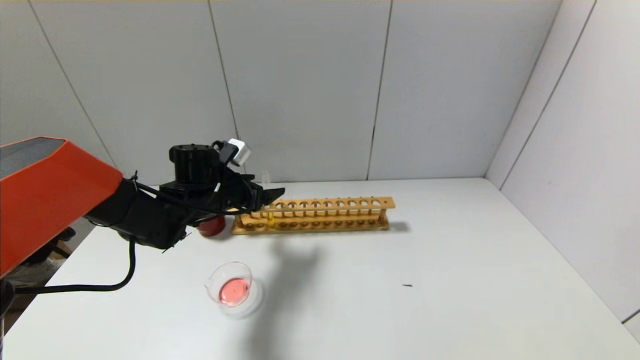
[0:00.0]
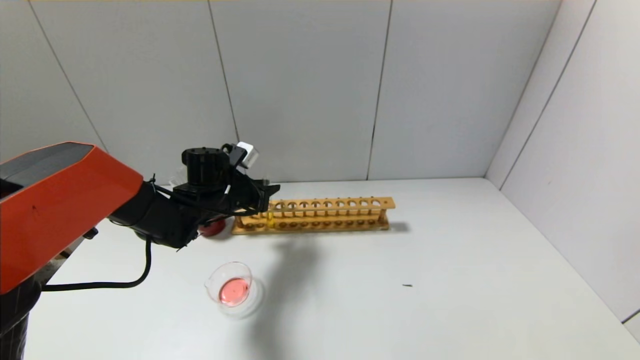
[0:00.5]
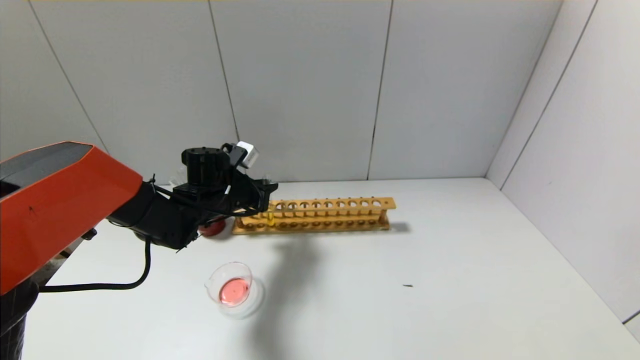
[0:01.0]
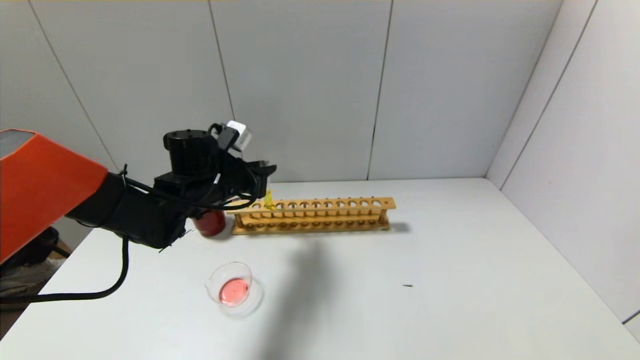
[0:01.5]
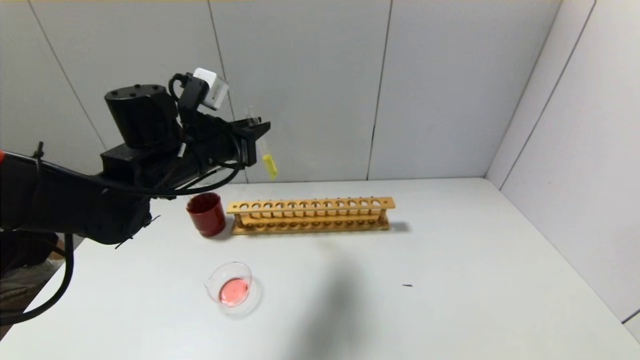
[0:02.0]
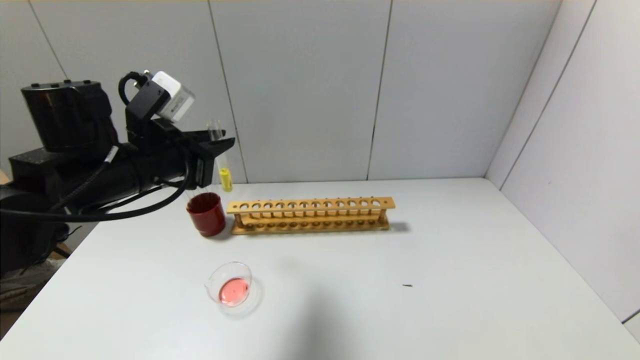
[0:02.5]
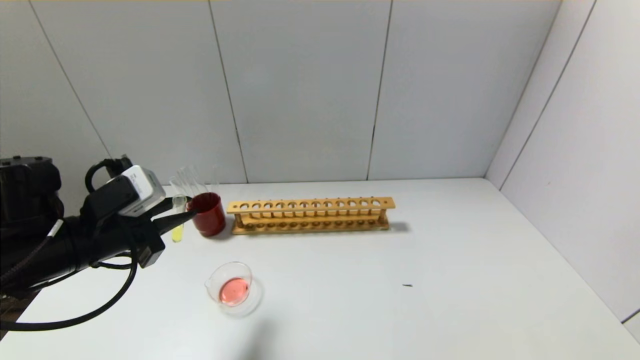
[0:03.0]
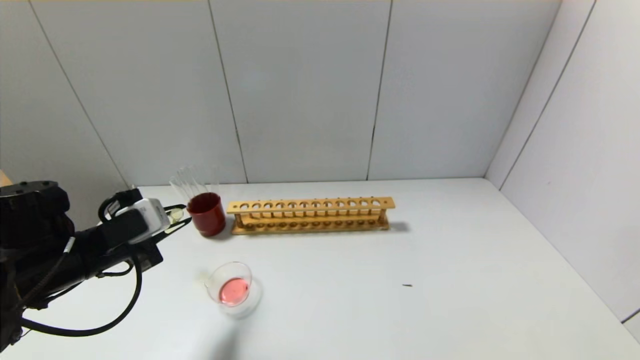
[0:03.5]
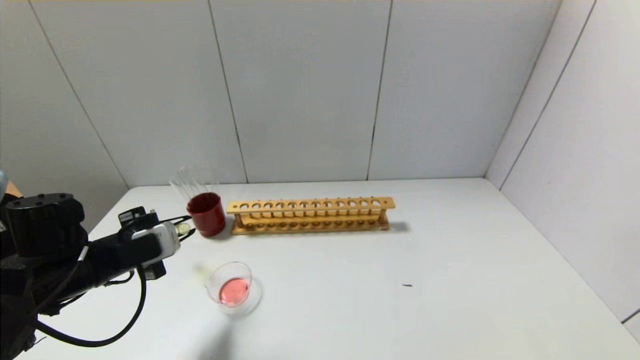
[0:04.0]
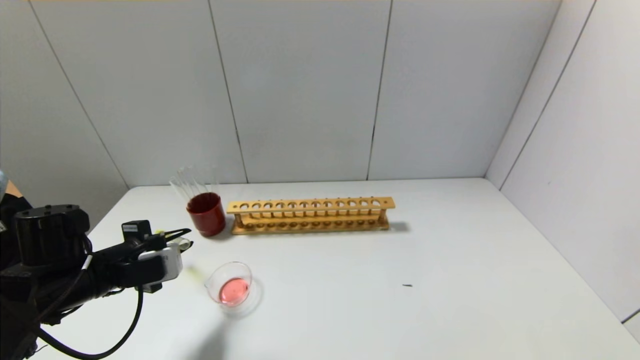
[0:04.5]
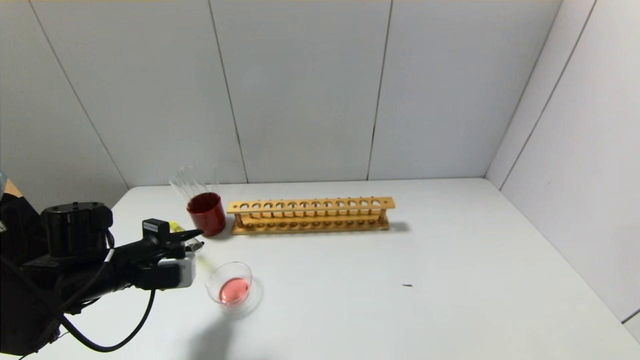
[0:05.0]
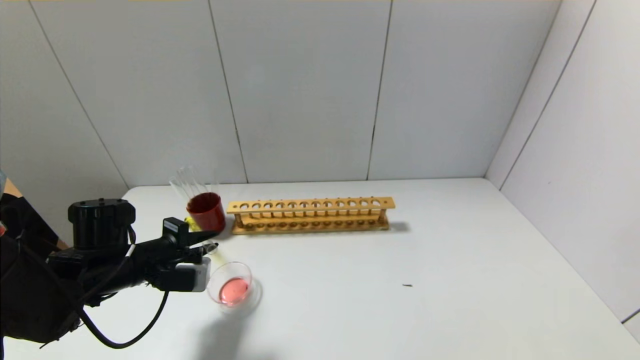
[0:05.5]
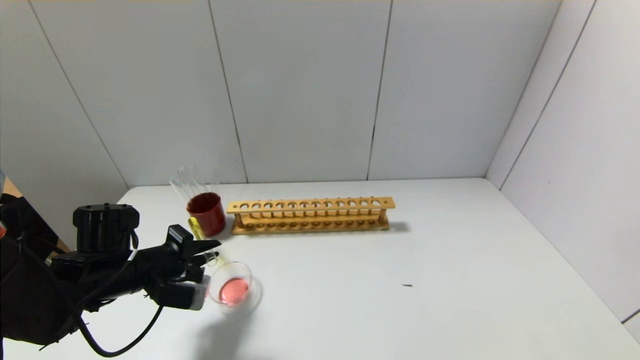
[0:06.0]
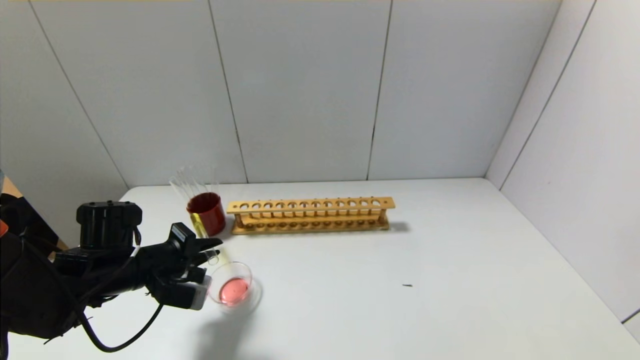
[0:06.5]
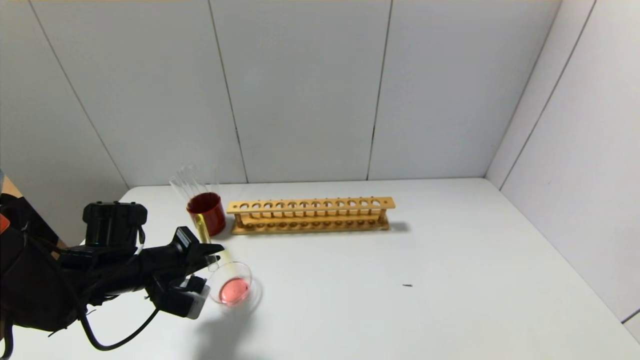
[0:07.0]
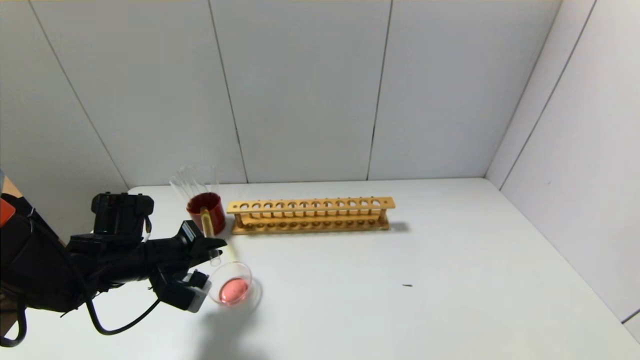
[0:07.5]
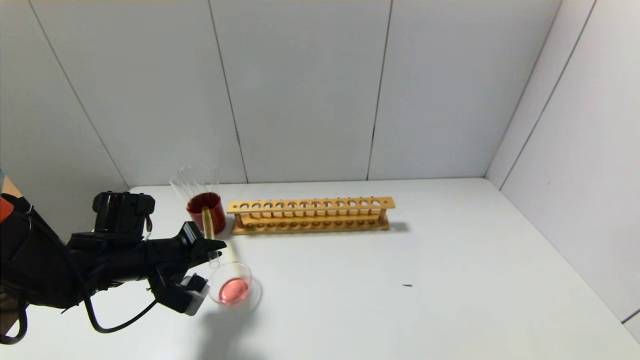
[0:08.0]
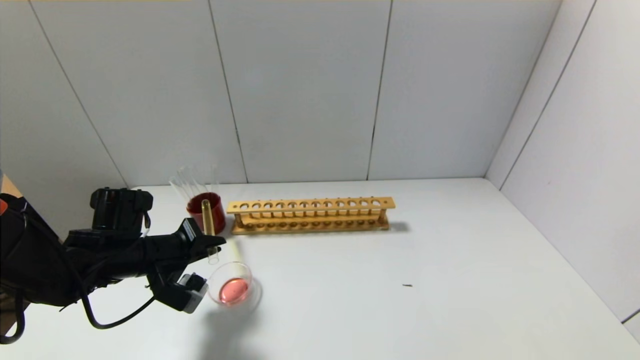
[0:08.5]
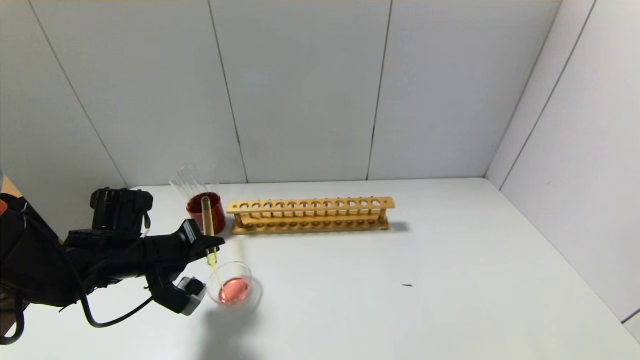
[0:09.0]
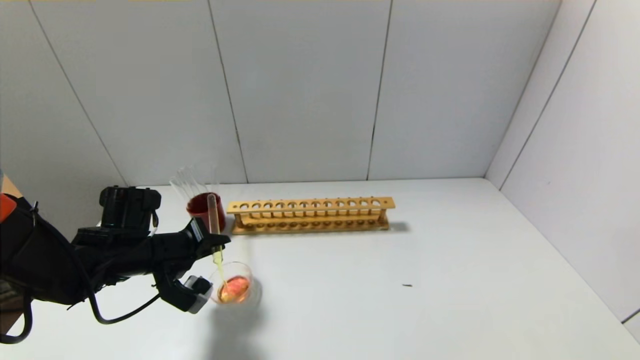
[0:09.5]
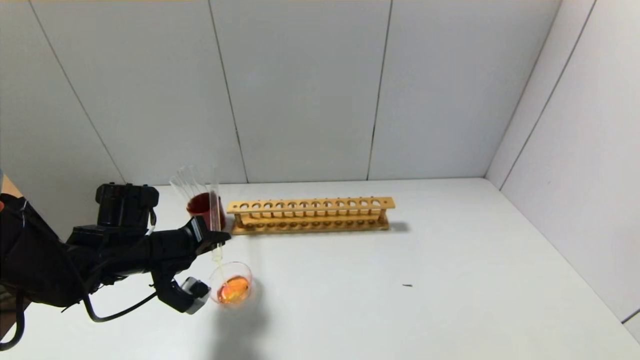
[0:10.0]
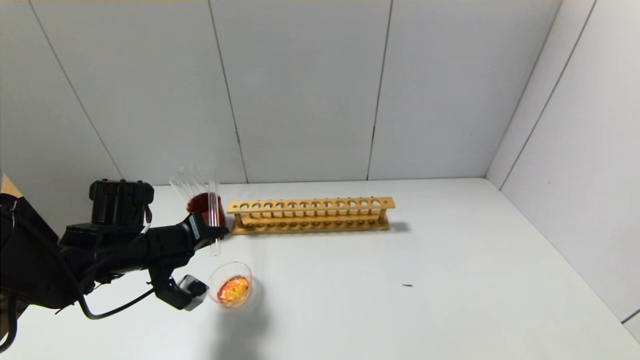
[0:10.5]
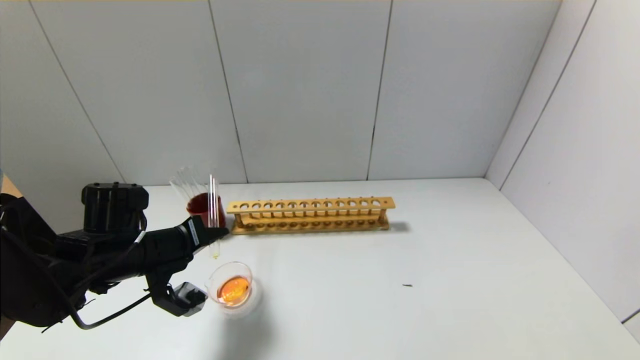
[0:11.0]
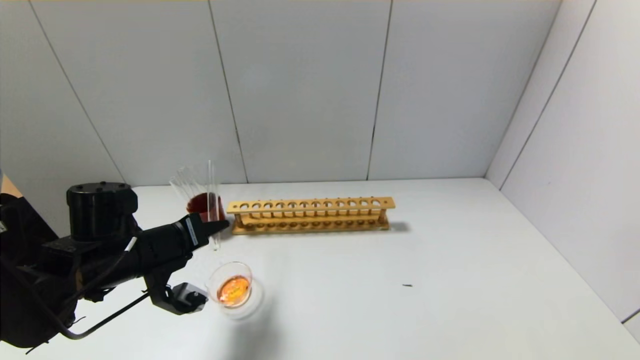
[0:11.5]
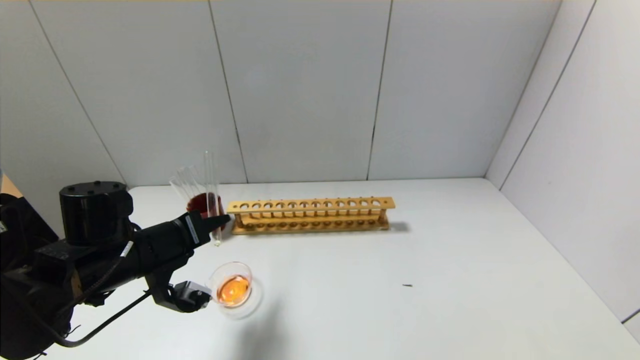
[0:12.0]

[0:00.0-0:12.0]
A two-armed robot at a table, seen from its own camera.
0.0 to 2.0 s: The left gripper heads upward and backward, covering about 15 cm, and closes its fingers.
2.0 to 4.0 s: The left gripper shifts about 20 cm downward, to the left and backward.
4.0 to 6.0 s: The left gripper moves about 5 cm.
6.0 to 8.0 s: The grippers make only small movements.
8.0 to 10.0 s: The grippers stay close to where they were, moving slightly.
10.0 to 12.0 s: The left gripper changes place by roughly 5 cm.

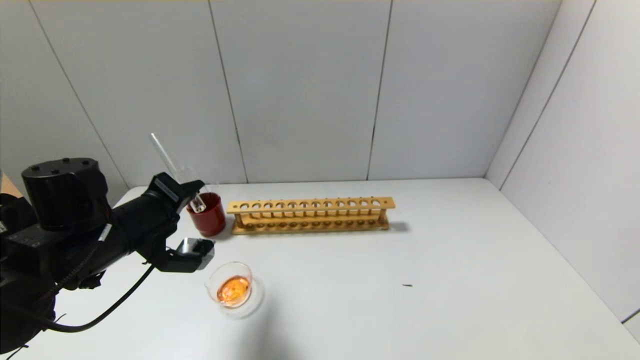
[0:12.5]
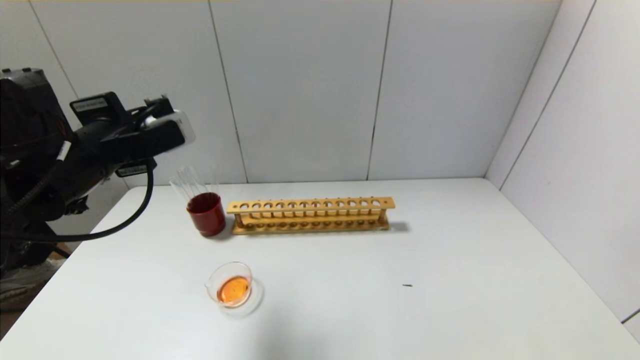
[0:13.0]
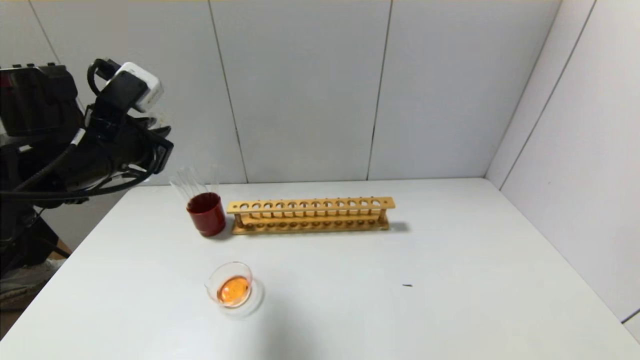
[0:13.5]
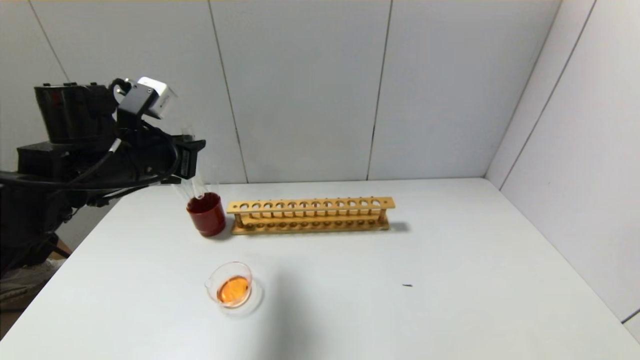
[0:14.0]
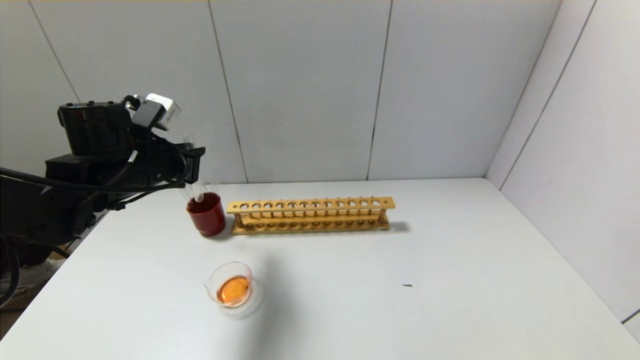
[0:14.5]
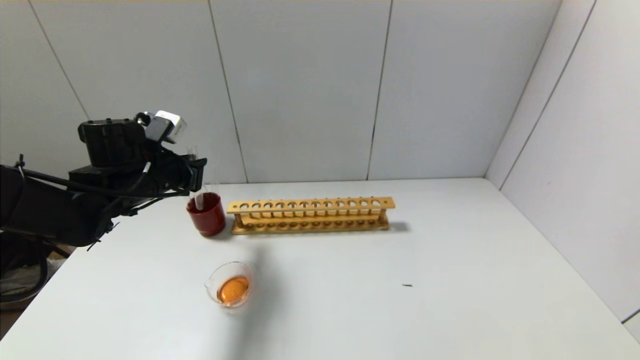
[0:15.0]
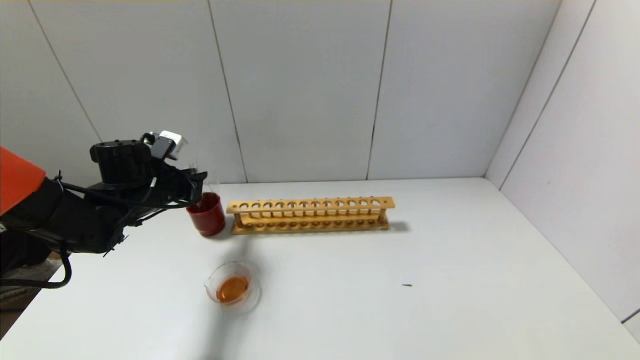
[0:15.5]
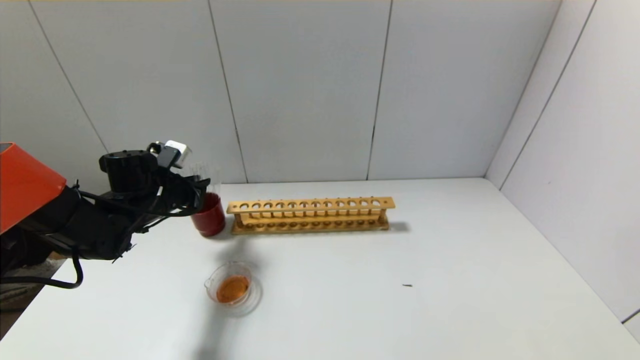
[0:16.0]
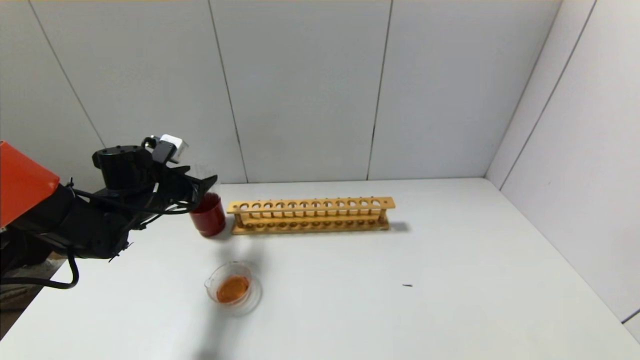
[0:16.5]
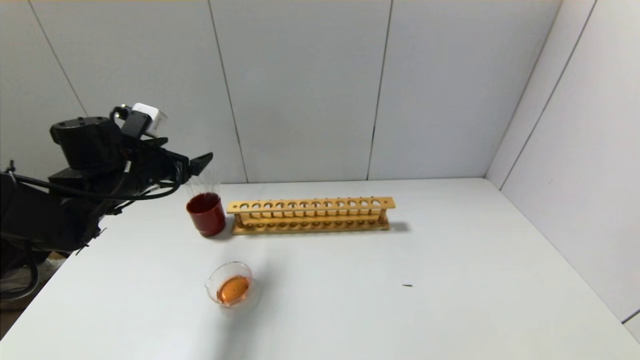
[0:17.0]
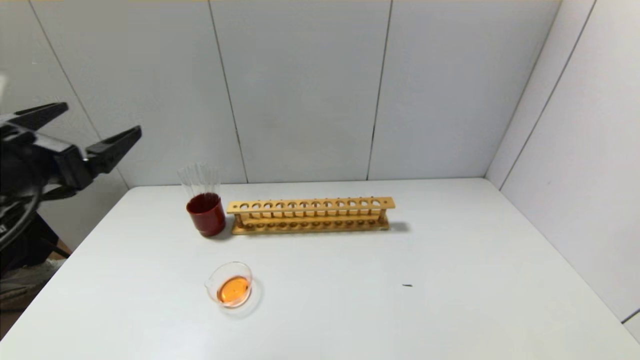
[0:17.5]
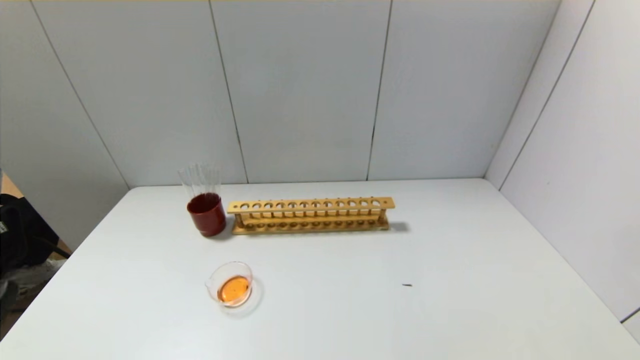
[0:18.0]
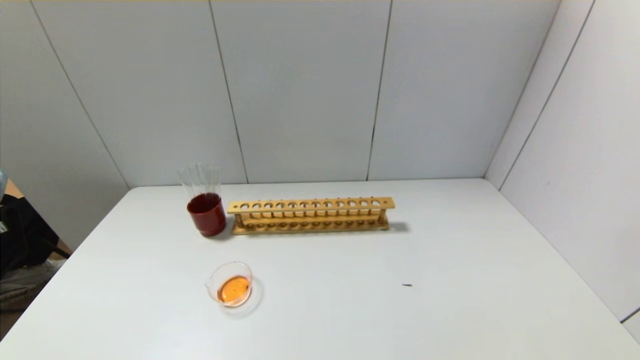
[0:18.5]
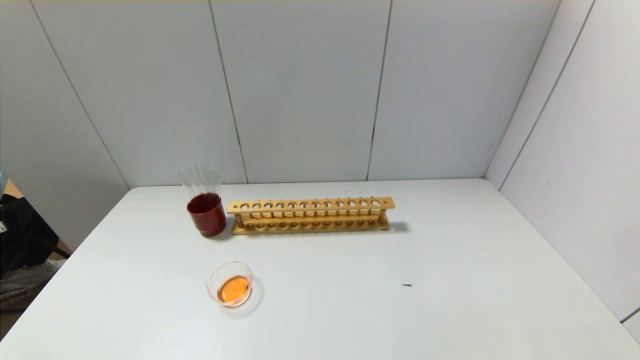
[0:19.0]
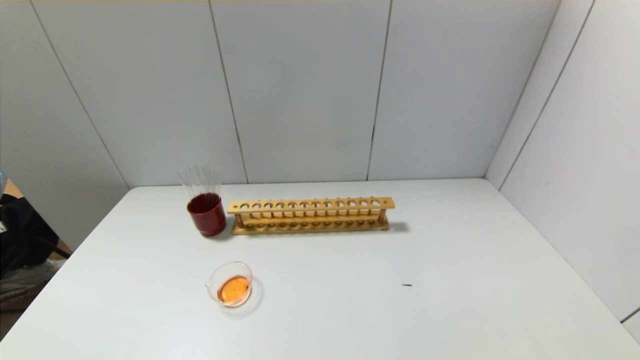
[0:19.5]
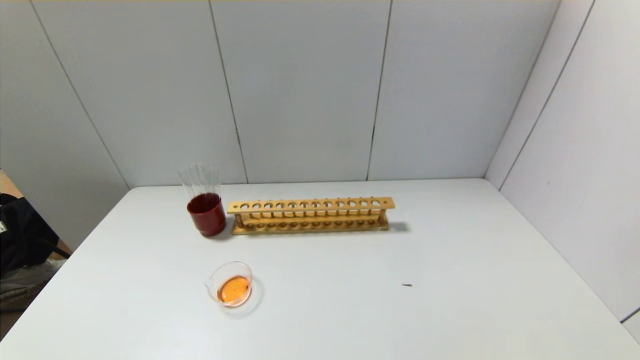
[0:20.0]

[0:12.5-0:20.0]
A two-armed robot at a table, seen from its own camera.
Step, 13.0 to 16.0 s: Place the test tube into the brown cup with the left gripper.
12.5 to 14.5 s: The left gripper travels forward by about 10 cm.
14.5 to 16.5 s: The left gripper shifts approximately 10 cm downward and forward, and opens.
16.5 to 18.0 s: The left gripper goes about 35 cm backward.

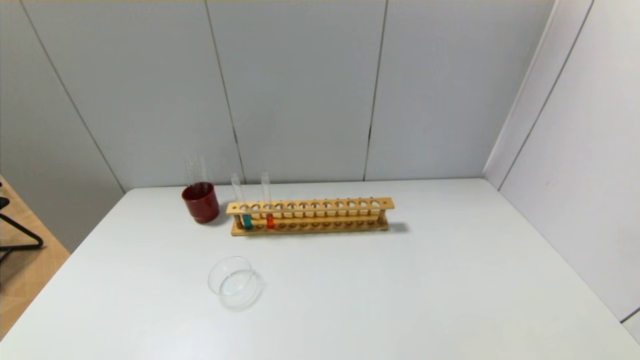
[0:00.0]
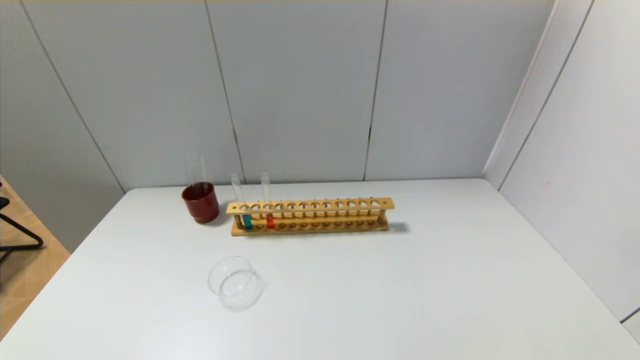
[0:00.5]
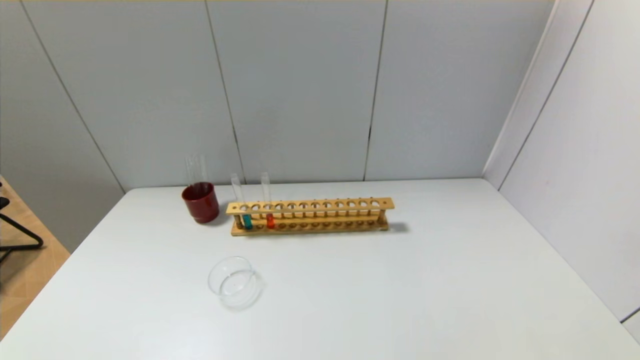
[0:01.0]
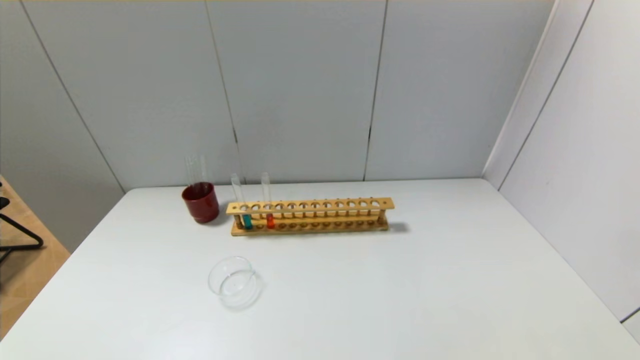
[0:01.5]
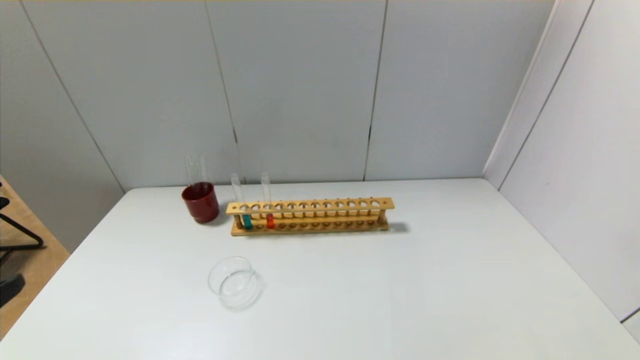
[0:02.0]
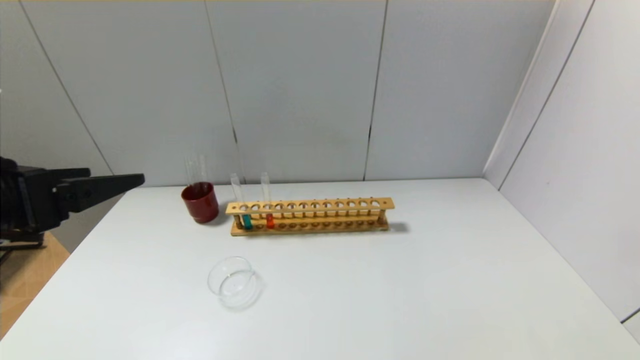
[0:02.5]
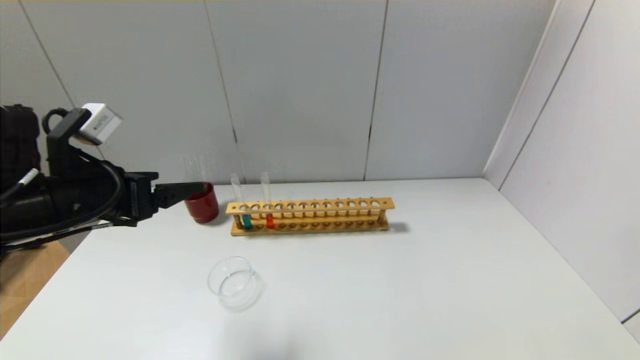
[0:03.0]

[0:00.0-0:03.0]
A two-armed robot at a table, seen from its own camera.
1.5 to 3.0 s: The left gripper shifts some 30 cm forward.
